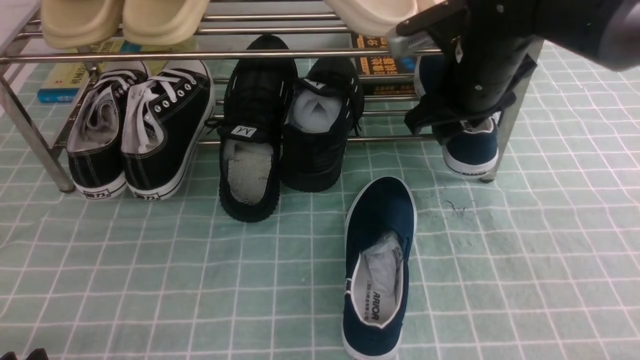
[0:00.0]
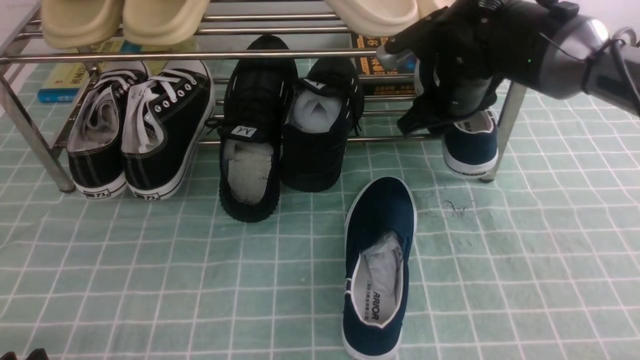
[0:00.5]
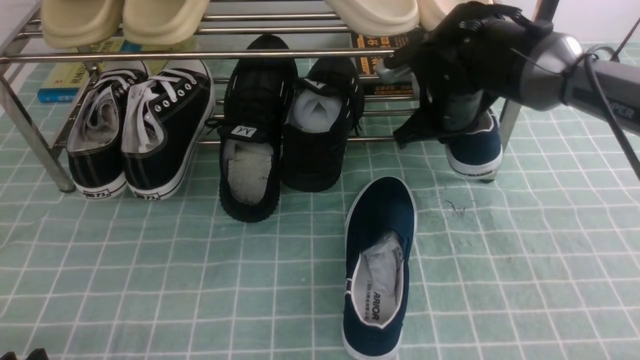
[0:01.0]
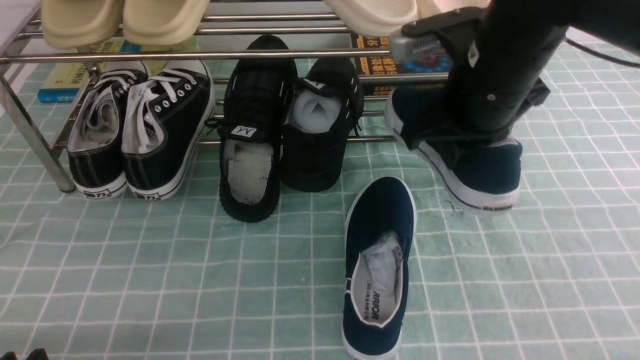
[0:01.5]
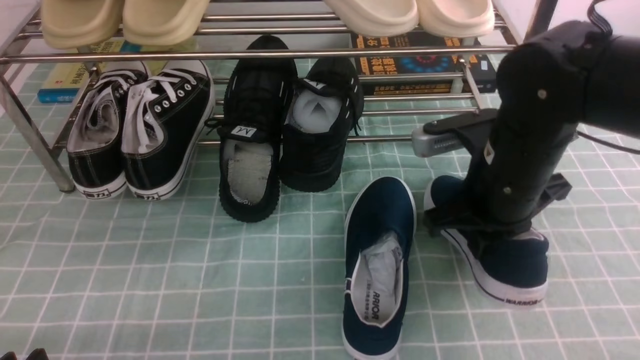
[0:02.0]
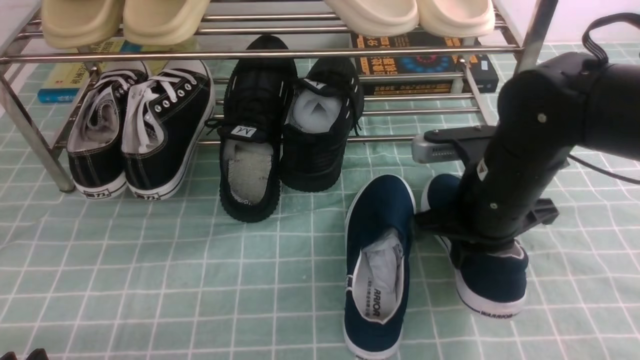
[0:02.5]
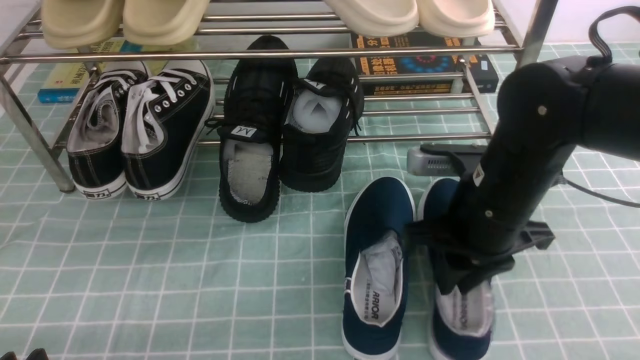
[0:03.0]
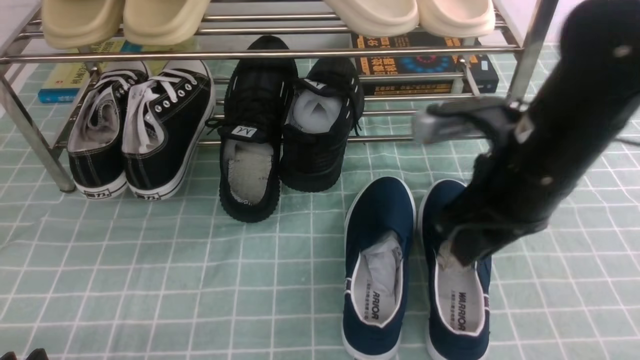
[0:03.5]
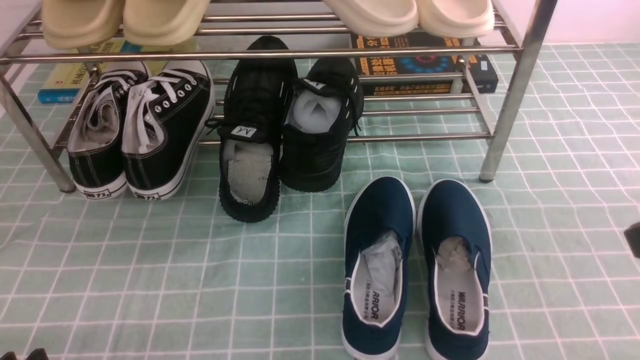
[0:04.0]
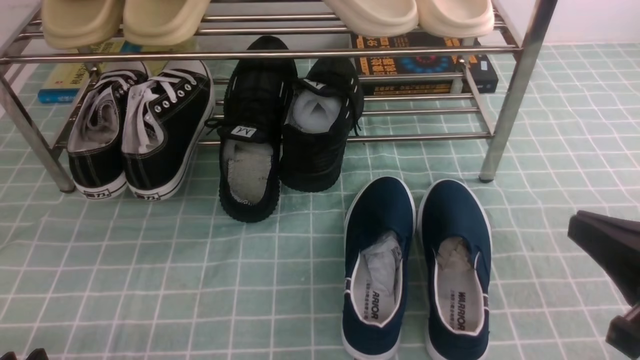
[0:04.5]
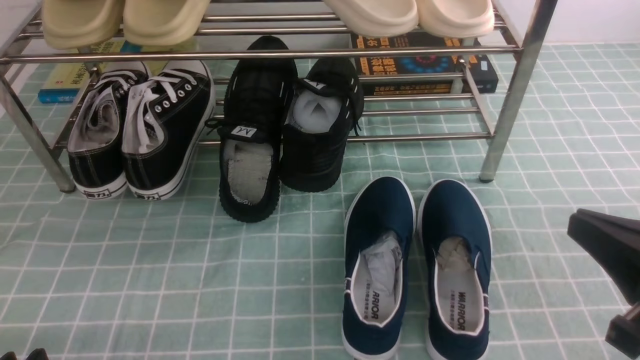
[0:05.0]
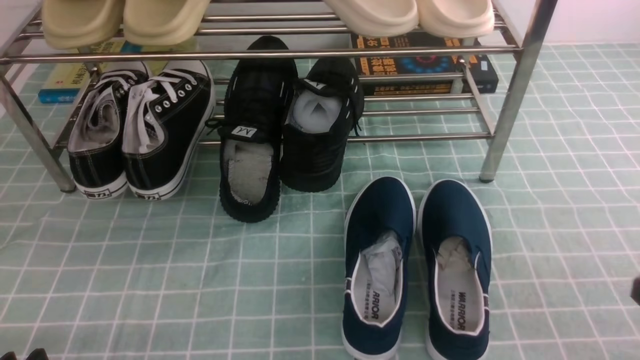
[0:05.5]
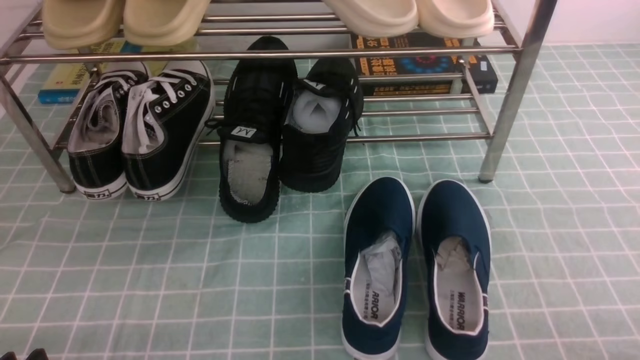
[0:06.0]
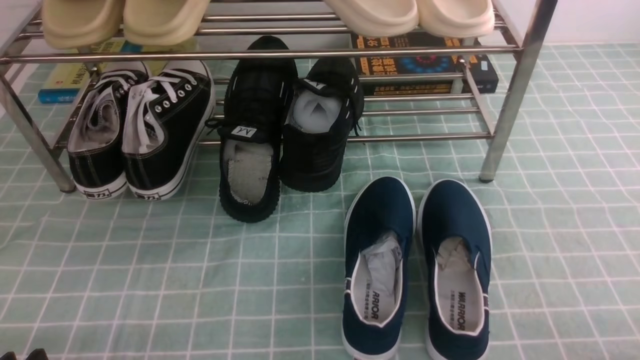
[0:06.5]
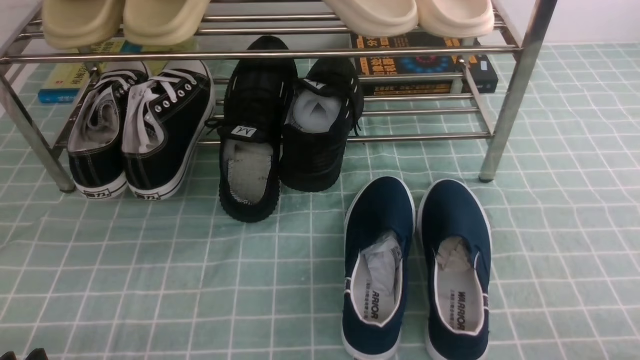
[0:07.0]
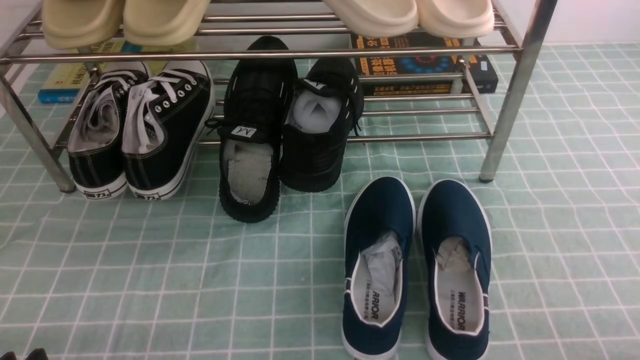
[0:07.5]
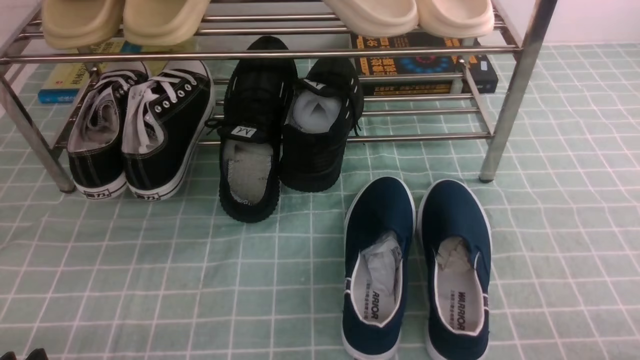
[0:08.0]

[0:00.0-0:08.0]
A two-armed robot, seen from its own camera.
Step, 0:01.0 to 0:02.5: use the right arm to take out the clamped shoe from the shoe rack and put it down.
0:00.0 to 0:02.0: The right gripper is displaced backward by roughly 10 cm, and closes its fingers.
0:02.0 to 0:04.0: The right gripper goes about 20 cm backward, upward and to the right, and opens, then closes once more.
0:04.0 to 0:06.0: The right gripper travels downward, to the right and backward by some 20 cm.
0:06.0 to 0:08.0: Both grippers stay put.
